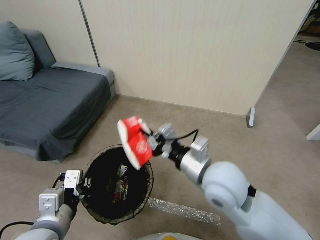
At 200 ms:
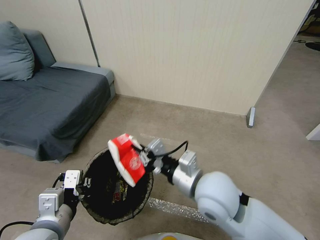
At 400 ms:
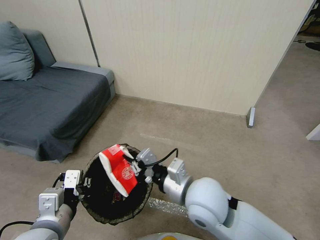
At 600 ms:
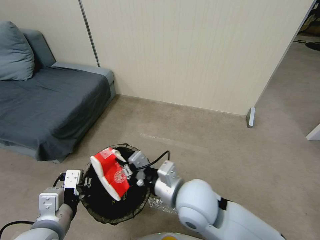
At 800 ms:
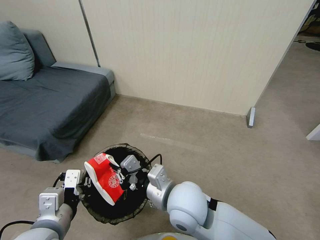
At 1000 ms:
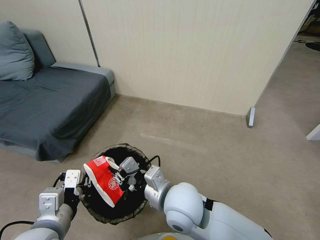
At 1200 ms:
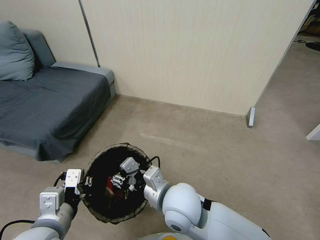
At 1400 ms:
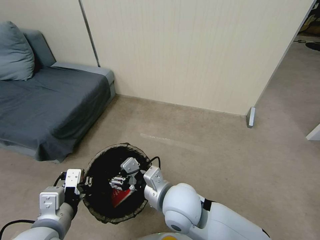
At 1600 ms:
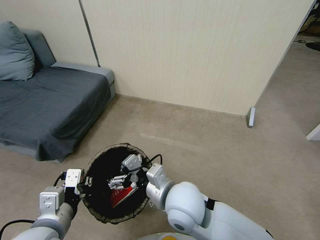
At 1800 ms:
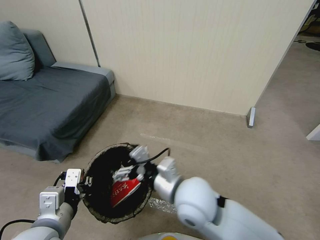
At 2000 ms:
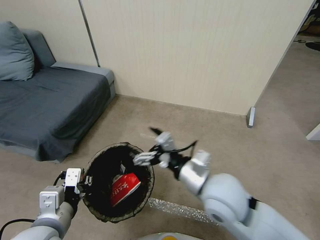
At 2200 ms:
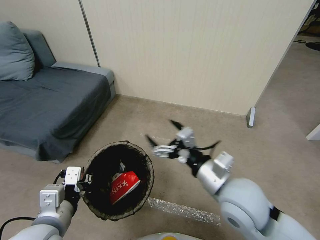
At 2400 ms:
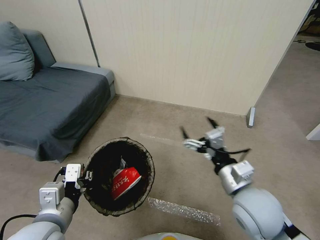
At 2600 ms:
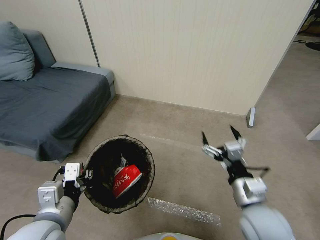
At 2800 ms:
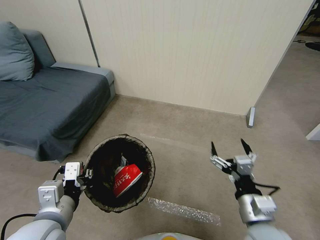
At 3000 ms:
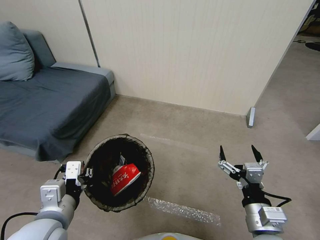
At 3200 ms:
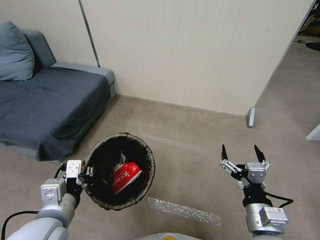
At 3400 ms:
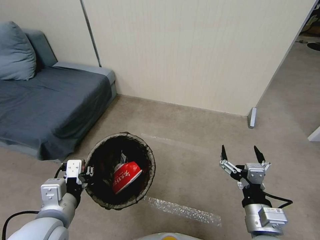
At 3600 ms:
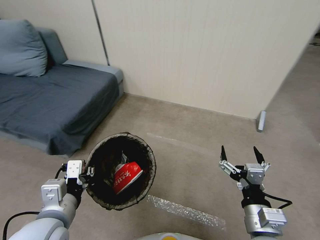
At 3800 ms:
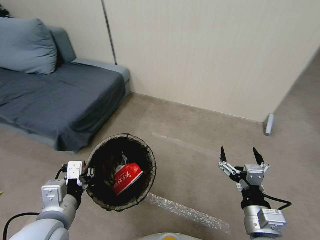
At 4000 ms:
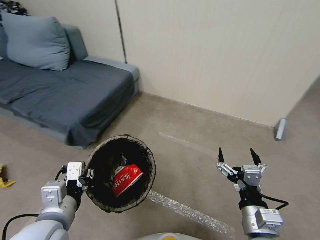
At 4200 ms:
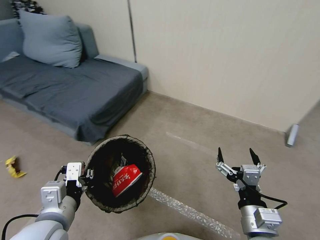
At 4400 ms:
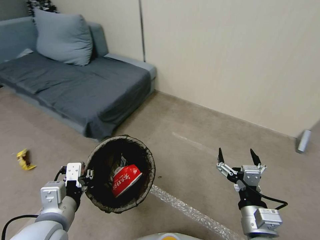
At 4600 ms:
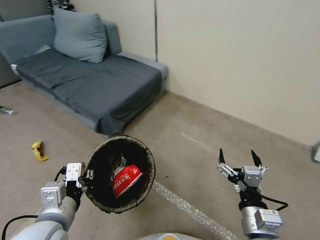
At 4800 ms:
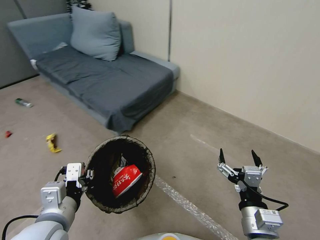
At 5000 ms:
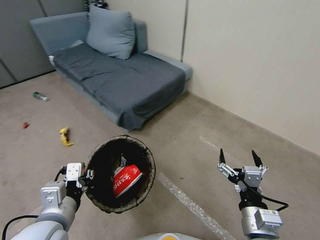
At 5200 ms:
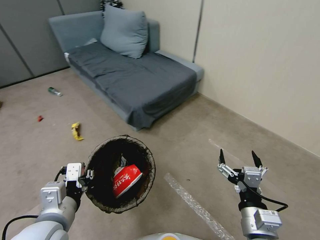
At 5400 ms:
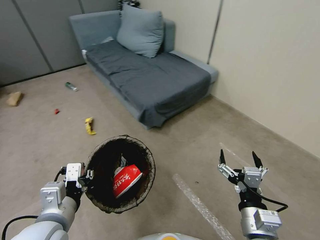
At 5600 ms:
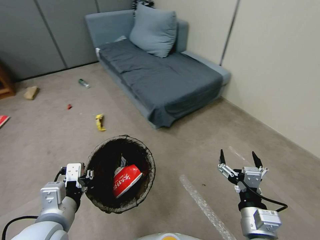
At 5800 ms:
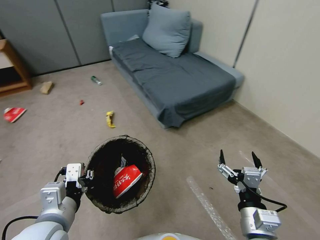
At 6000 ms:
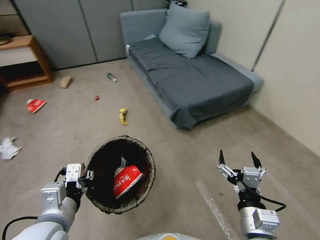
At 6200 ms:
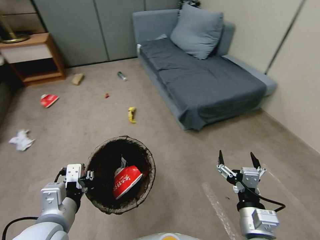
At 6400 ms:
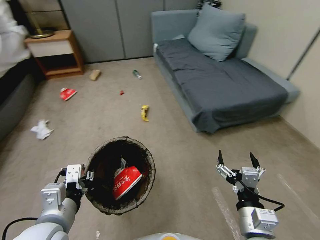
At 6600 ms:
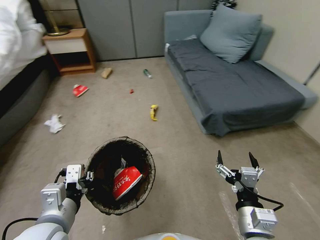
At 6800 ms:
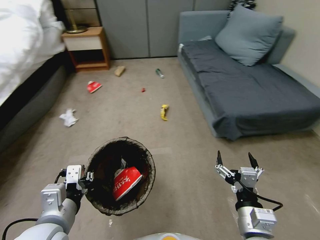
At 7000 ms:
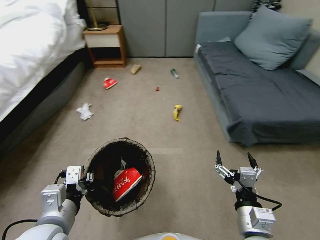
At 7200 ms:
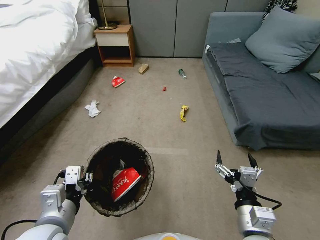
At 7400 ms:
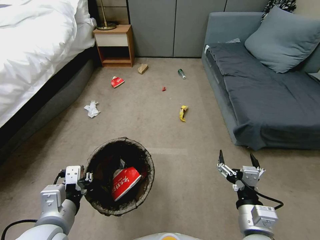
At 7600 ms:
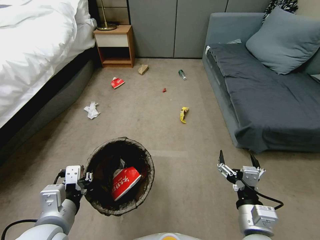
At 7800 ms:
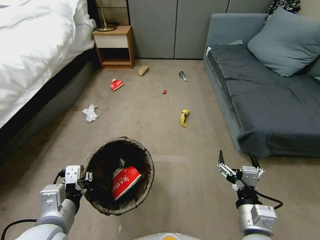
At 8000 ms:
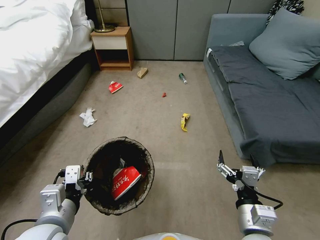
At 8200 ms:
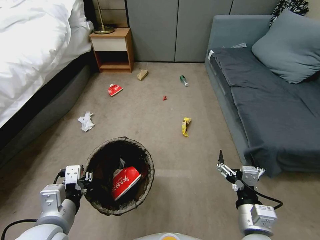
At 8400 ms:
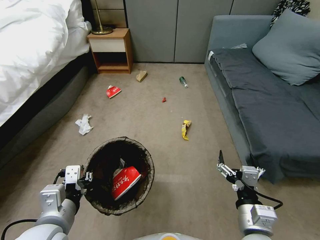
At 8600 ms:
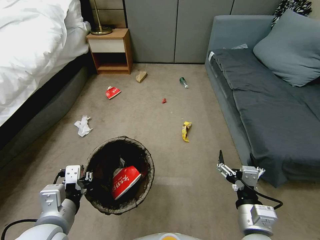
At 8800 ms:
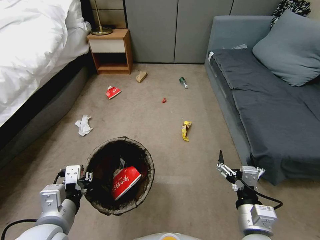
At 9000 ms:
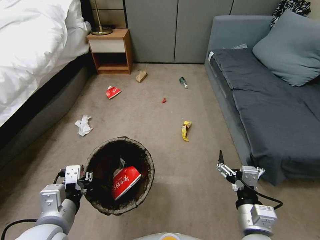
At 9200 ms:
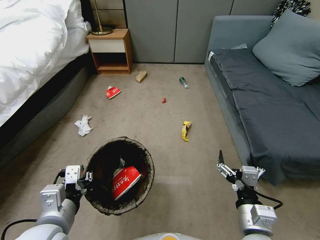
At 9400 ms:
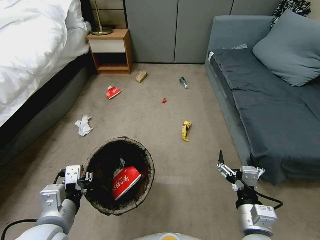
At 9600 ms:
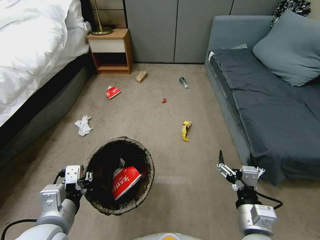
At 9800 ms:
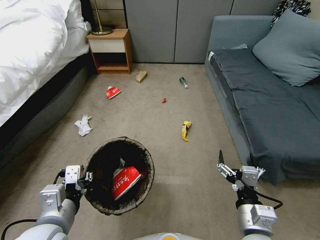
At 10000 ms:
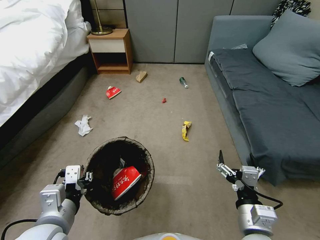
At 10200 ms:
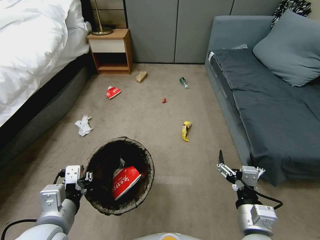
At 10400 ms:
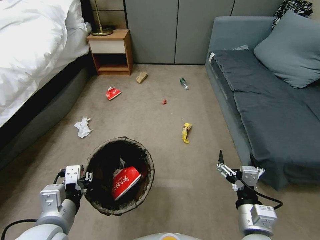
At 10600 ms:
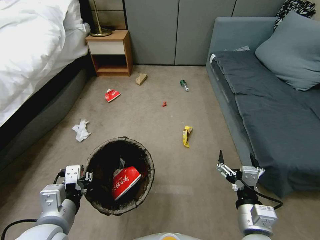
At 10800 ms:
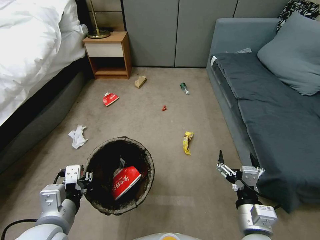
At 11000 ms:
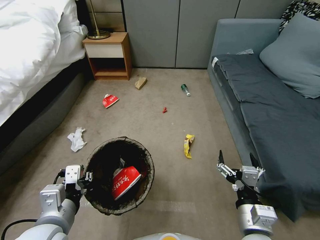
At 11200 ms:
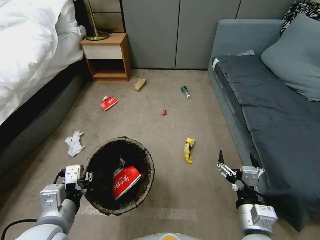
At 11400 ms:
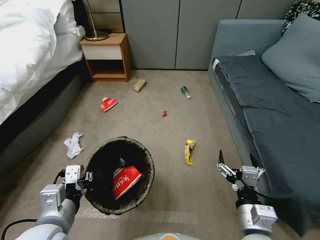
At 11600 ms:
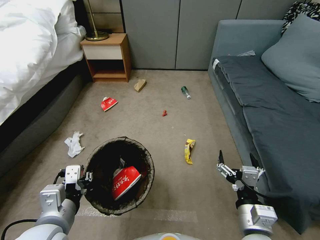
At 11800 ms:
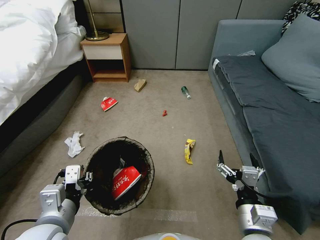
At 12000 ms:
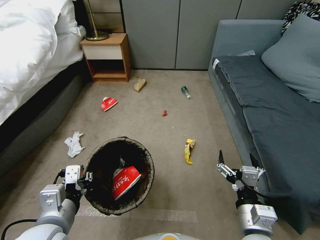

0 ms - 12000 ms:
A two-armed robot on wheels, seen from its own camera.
Task of the whole recording: Pick up the trash bin, then pick up the garbage from the floor and place it into the trash bin.
0 ms - 1600 ms: The right gripper travels to the left and downward by roughly 10 cm, and opens.
1600 ms - 3000 ms: The right gripper heads to the right and backward, covering some 20 cm.
7600 ms - 12000 ms: Both grippers stay about where they are.

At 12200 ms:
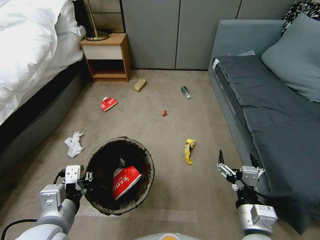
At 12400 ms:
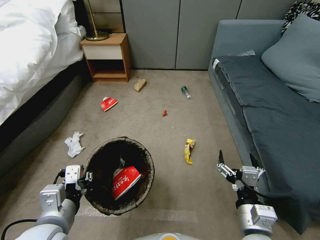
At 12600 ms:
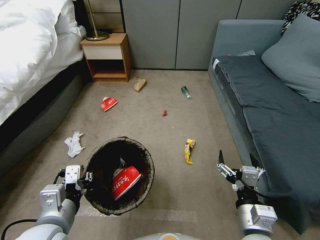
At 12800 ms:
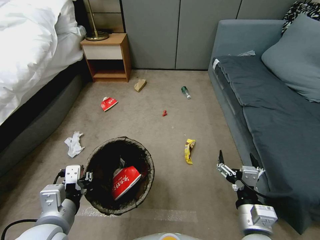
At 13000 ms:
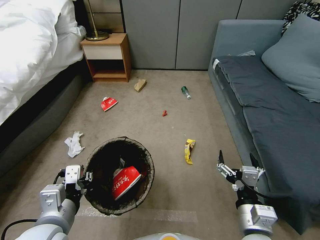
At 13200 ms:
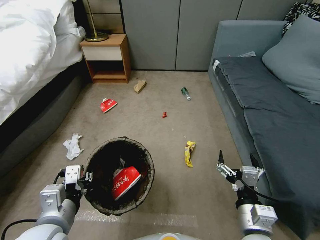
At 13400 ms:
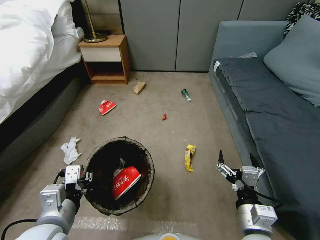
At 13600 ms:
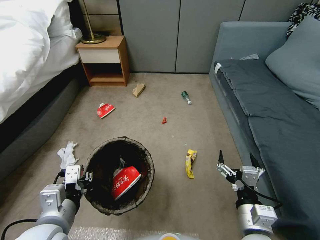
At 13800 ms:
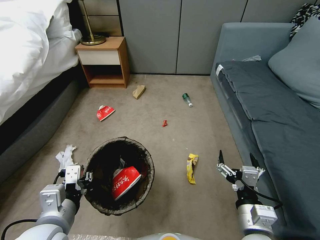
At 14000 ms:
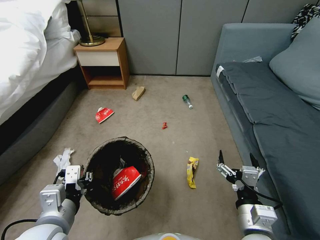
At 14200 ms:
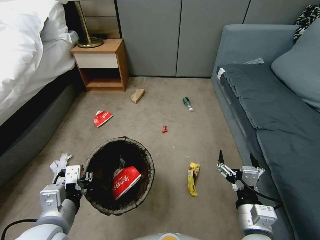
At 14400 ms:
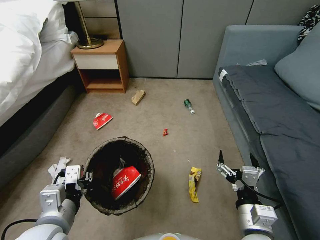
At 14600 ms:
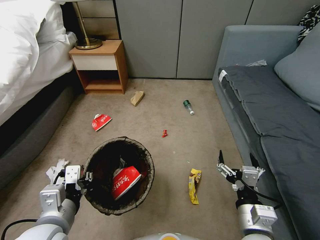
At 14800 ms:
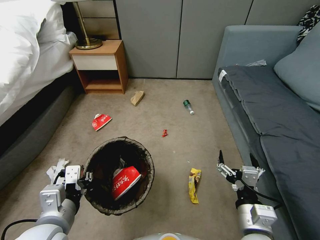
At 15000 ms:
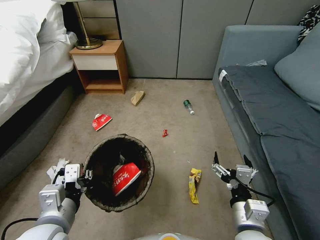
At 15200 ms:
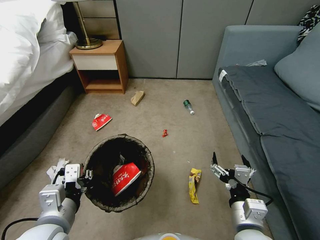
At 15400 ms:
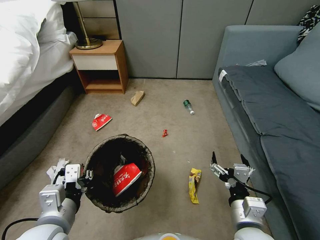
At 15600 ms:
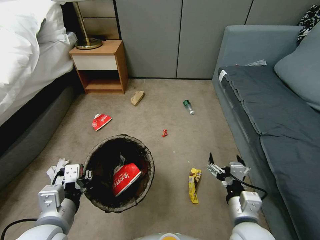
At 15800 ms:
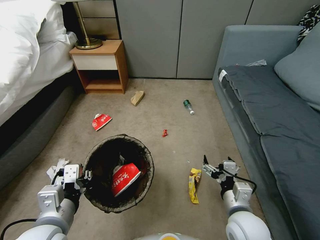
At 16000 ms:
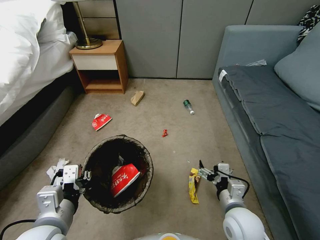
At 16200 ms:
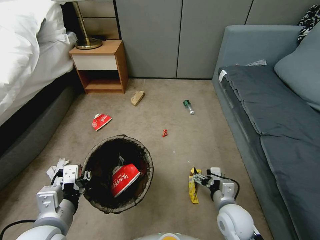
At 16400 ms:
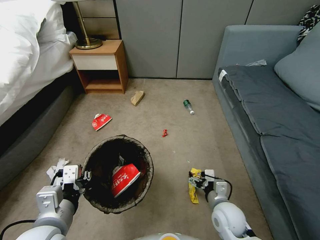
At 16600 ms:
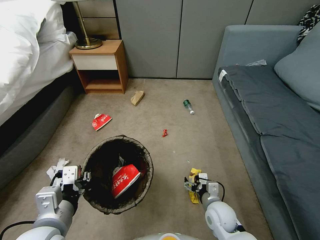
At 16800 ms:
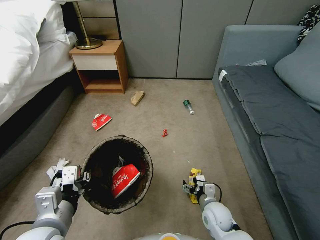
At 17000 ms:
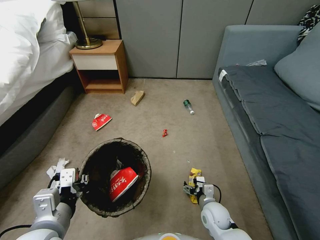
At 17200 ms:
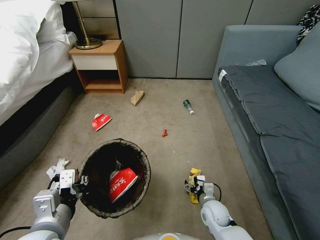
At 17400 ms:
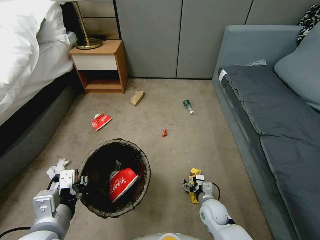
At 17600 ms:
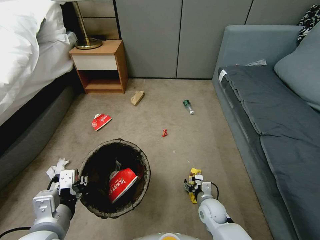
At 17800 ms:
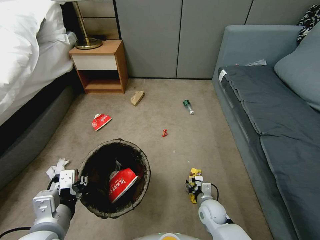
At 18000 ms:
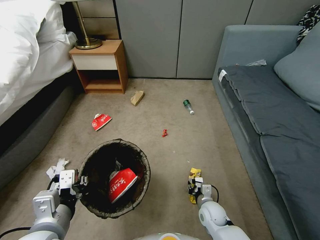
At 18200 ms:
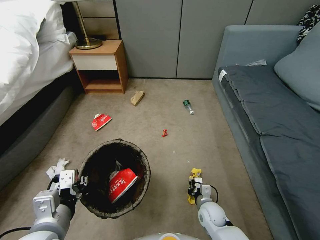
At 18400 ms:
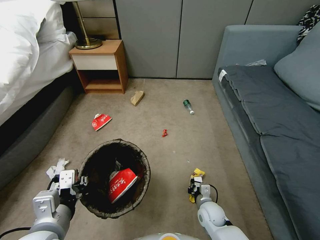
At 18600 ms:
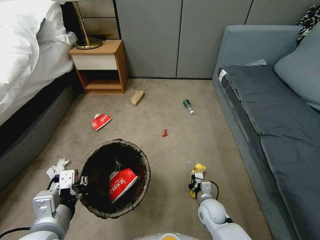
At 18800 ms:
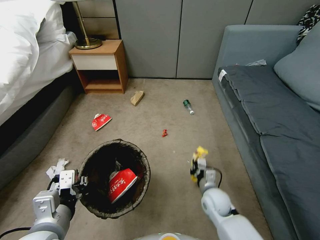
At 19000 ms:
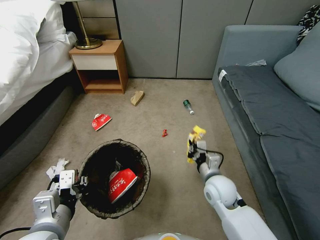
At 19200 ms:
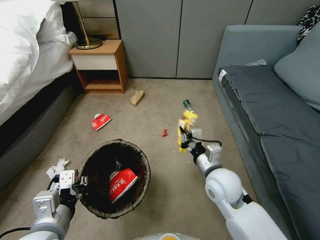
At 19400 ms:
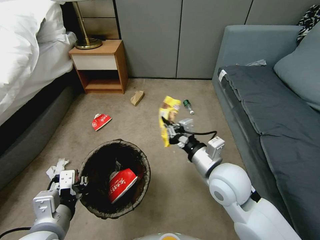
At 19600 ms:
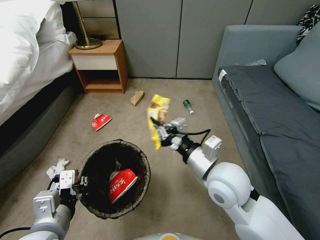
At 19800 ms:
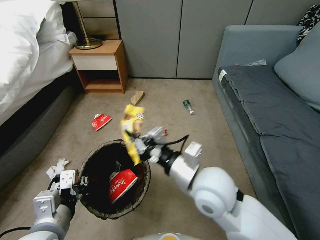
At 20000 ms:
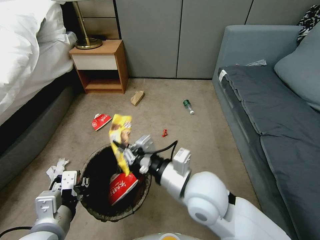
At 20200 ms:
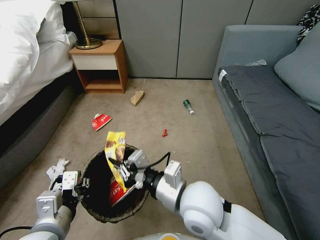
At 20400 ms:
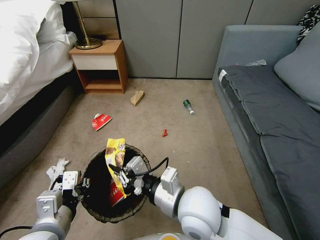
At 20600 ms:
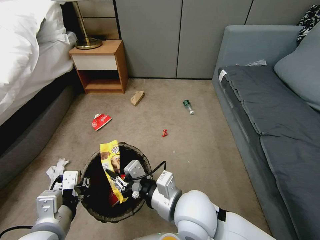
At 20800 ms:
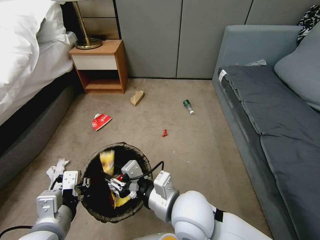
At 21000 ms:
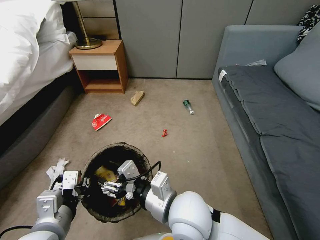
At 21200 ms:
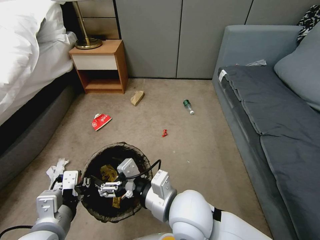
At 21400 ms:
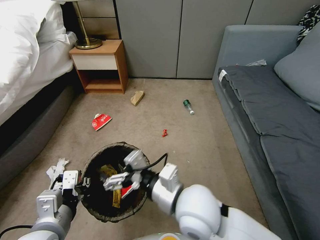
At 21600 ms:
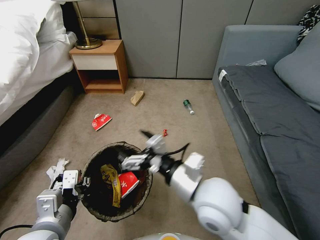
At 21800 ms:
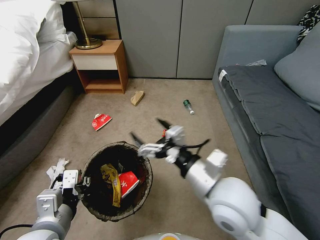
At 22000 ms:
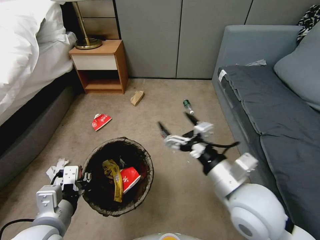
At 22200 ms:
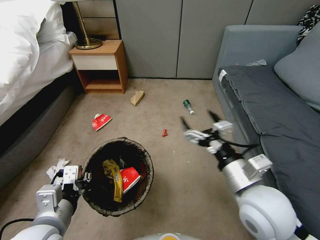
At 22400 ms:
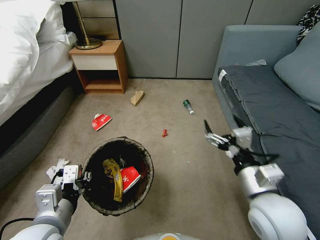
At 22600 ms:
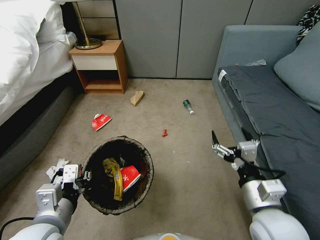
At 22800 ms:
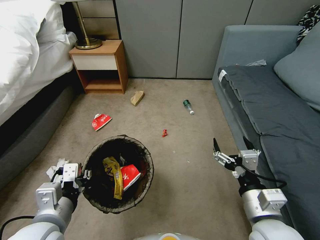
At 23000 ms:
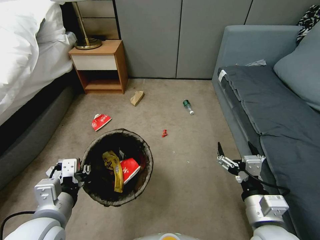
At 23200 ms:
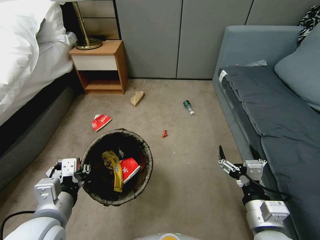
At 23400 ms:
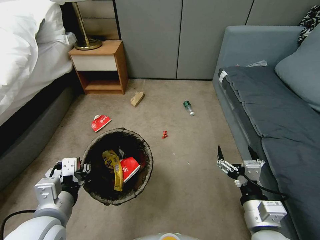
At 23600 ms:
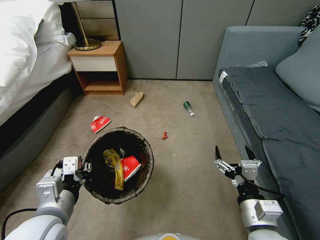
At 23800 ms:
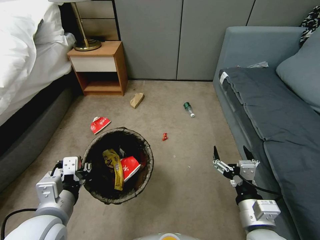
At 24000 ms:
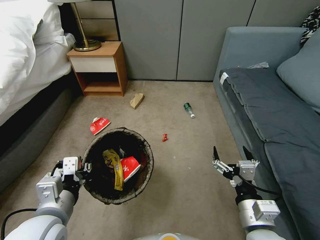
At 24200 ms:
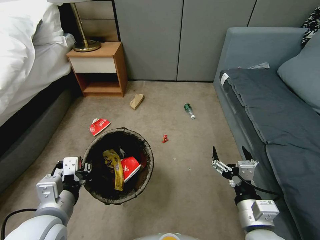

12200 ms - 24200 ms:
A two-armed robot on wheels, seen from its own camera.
Task of the whole recording: Pick up the trash bin, then pick up the garbage from the floor and place it into the trash bin.
12200 ms - 13800 ms: Both grippers stay put.
13800 ms - 15200 ms: The grippers move only a little.
15200 ms - 16600 ms: The right gripper moves downward and forward, some 15 cm.
16600 ms - 18200 ms: The right gripper goes approximately 10 cm downward, and closes.
18200 ms - 19800 ms: The right gripper shifts about 35 cm upward.
19800 ms - 21200 ms: The right gripper goes some 5 cm to the left, and opens up.
21200 ms - 22600 ms: The right gripper shifts roughly 20 cm to the right.
